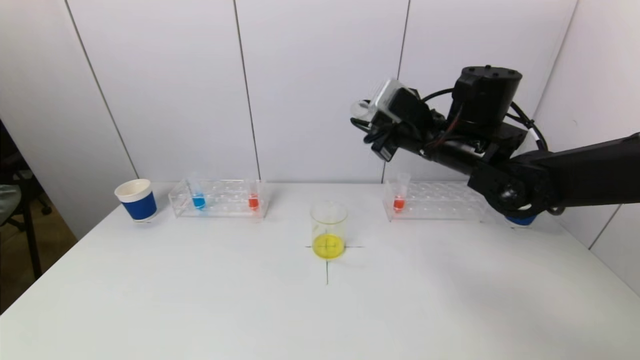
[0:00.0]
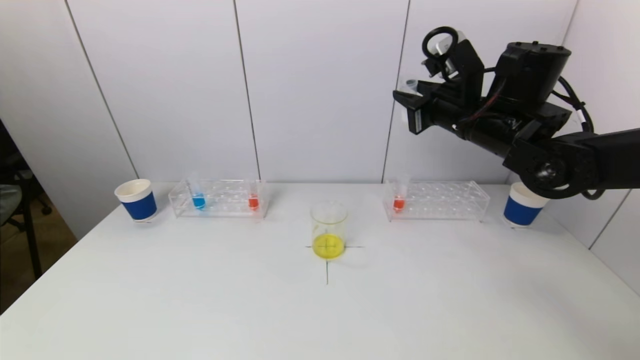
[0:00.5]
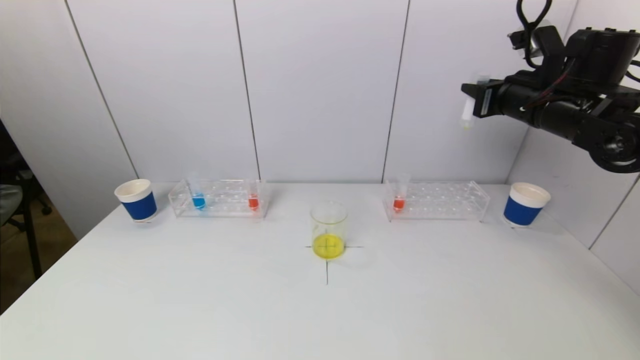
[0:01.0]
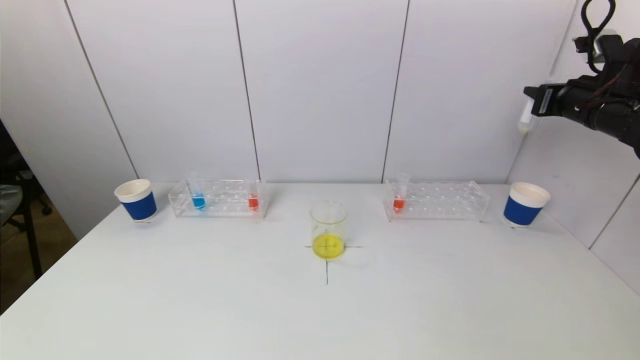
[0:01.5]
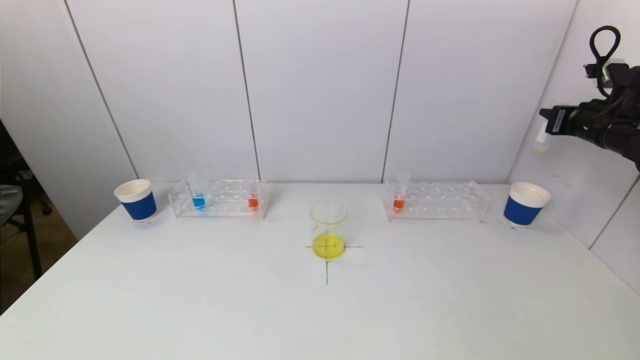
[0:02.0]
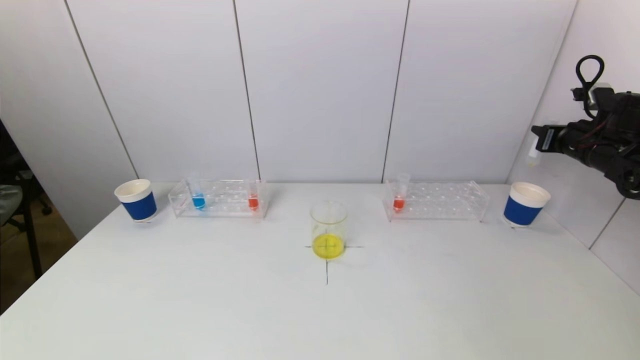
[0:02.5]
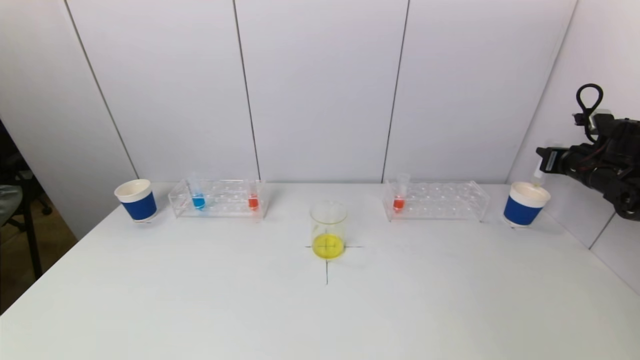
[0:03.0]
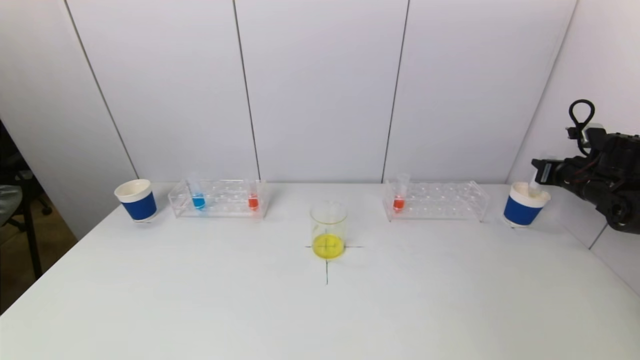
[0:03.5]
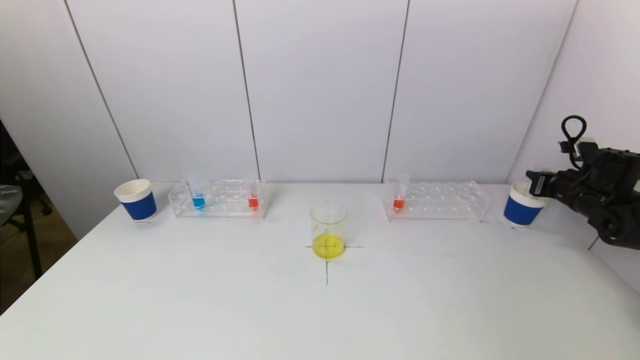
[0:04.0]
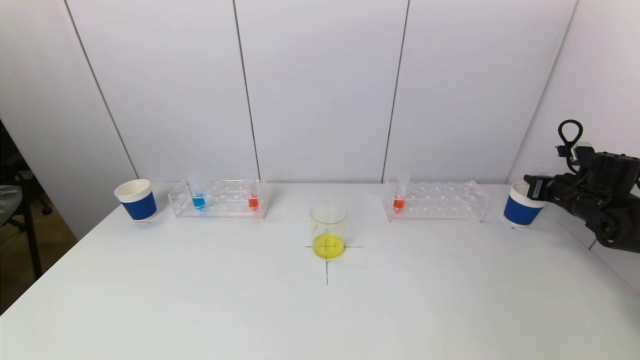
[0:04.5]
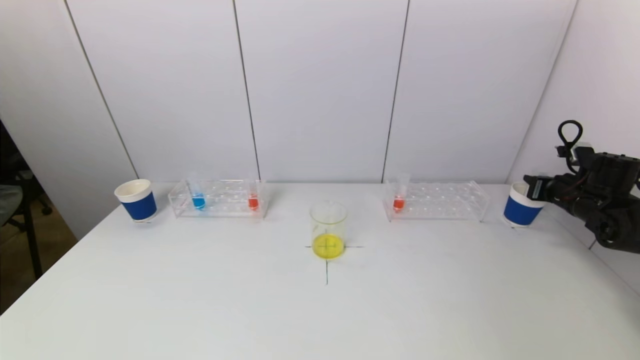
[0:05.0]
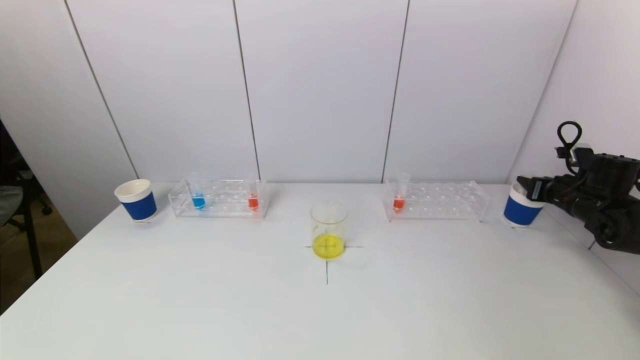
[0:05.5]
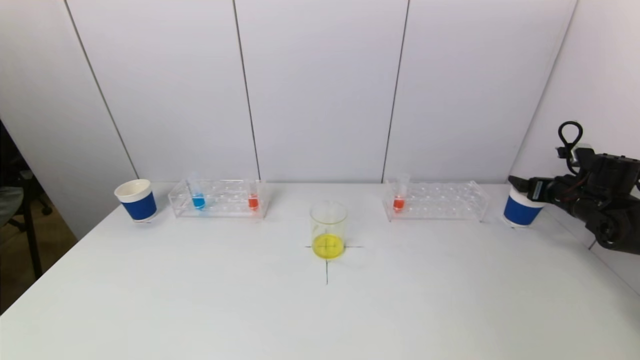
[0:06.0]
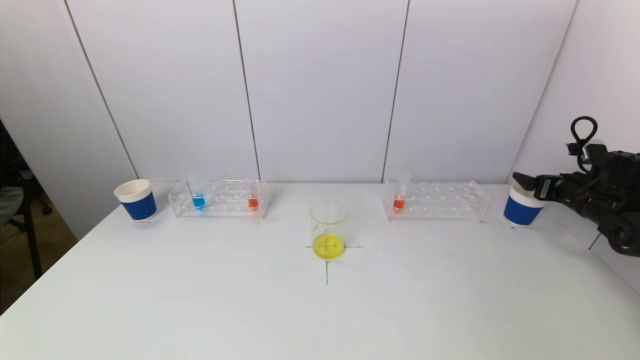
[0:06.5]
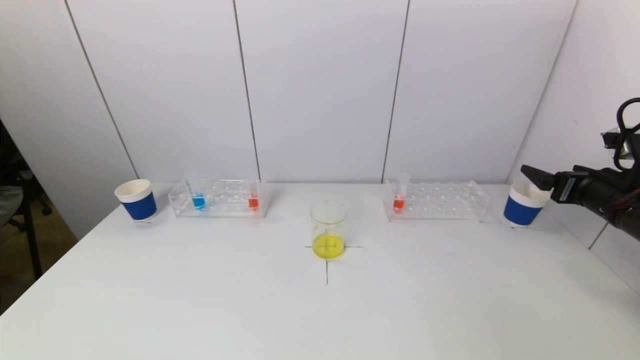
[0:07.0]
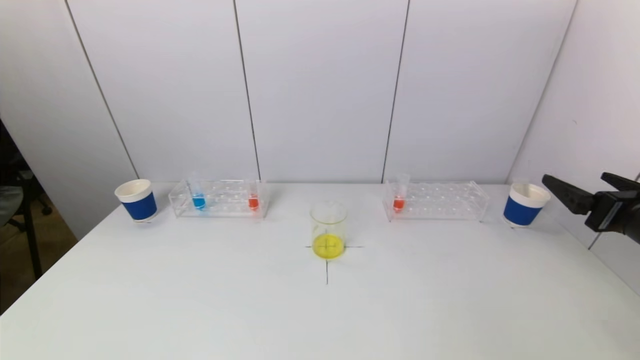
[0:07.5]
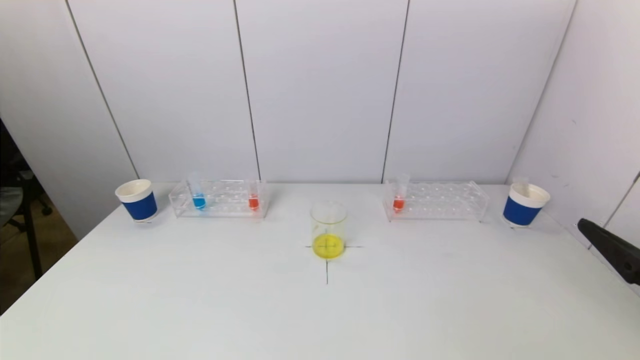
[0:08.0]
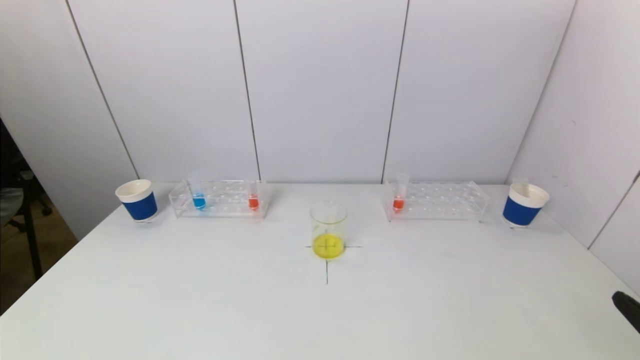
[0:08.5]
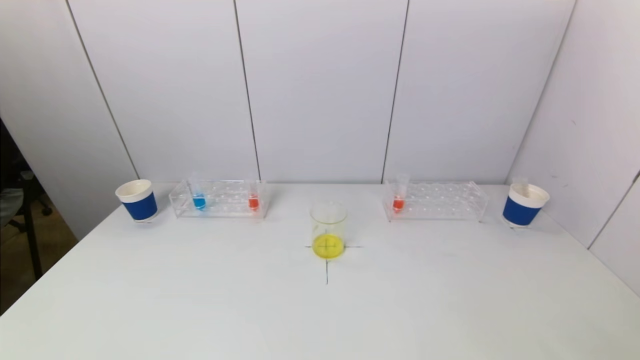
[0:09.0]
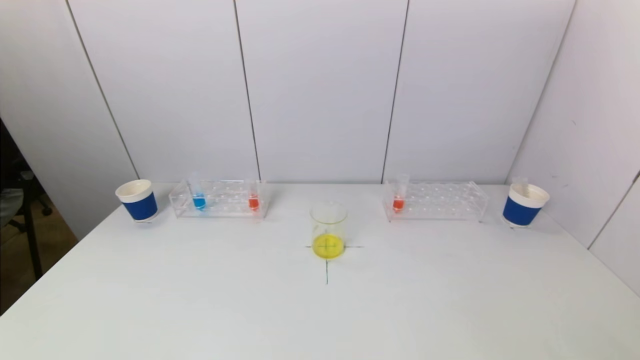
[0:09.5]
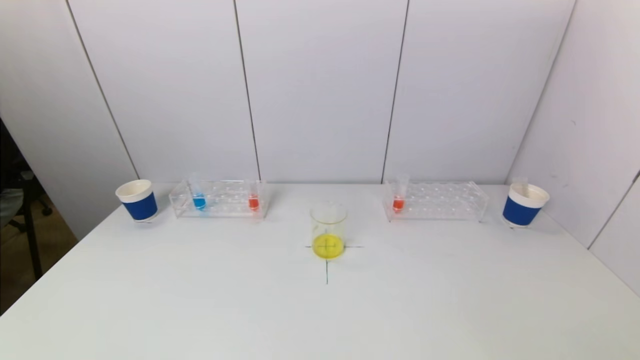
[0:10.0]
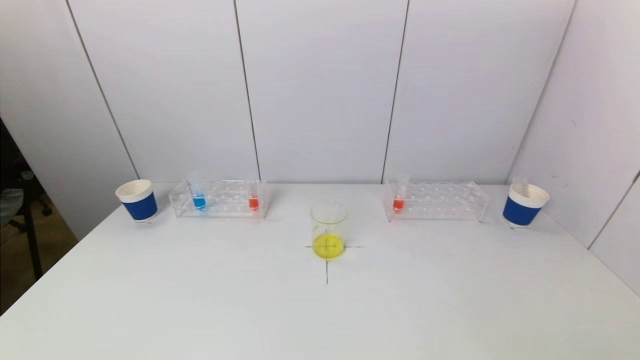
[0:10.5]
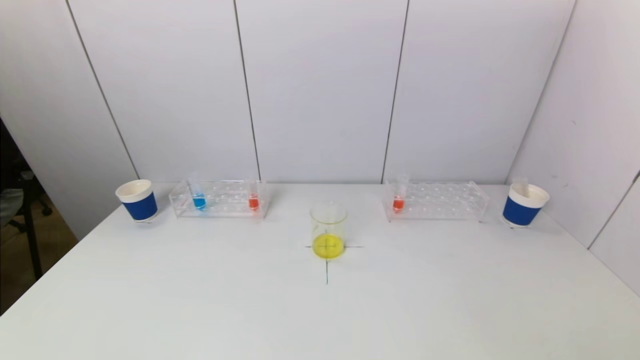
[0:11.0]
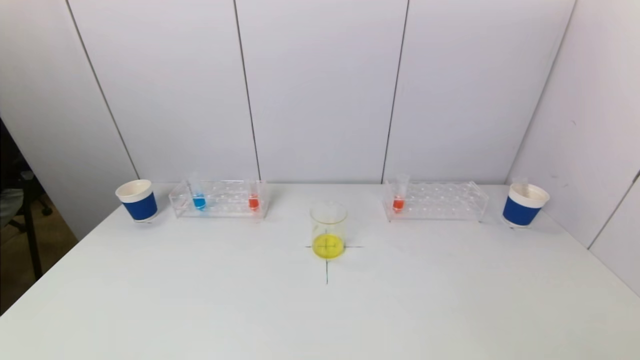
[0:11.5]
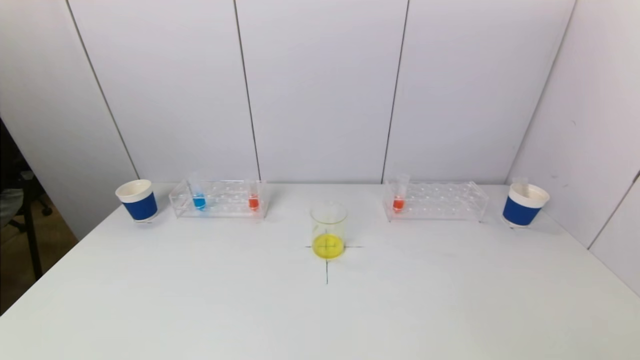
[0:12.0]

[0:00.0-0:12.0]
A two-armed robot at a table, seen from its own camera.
Task of the whole recording: pick up a test tube with pigment on left test tube rack and a test tube with pigment on right test tube rack by grippers and pour them into the beaker.
Step, 0:00.0 to 0:05.5: Place the test tube into the paper cup with the right gripper.
0:00.0 to 0:02.0: The right gripper shifts about 30 cm to the right.
0:02.0 to 0:04.0: The right gripper shifts about 15 cm downward.
0:04.0 to 0:06.0: The right gripper opens up.
0:06.0 to 0:08.0: The right gripper heads backward and to the left, covering some 30 cm.
0:08.0 to 0:10.0: The right gripper is displaced backward and downward by some 15 cm.

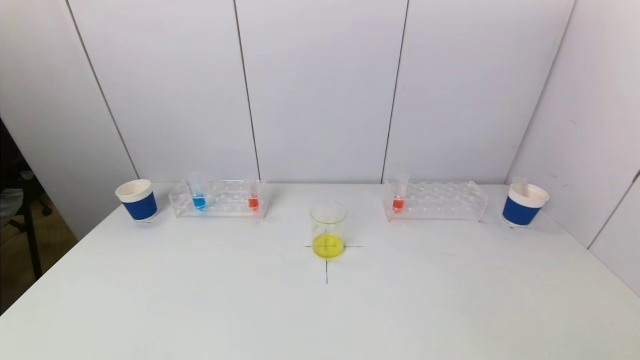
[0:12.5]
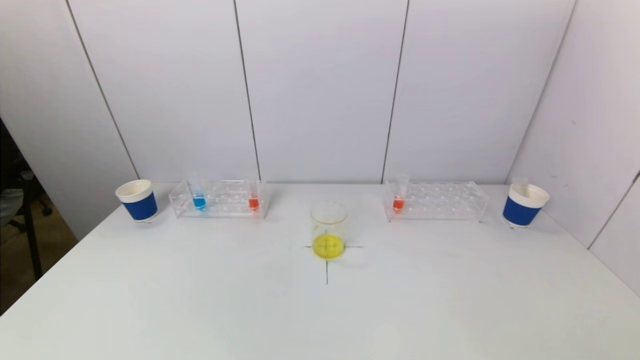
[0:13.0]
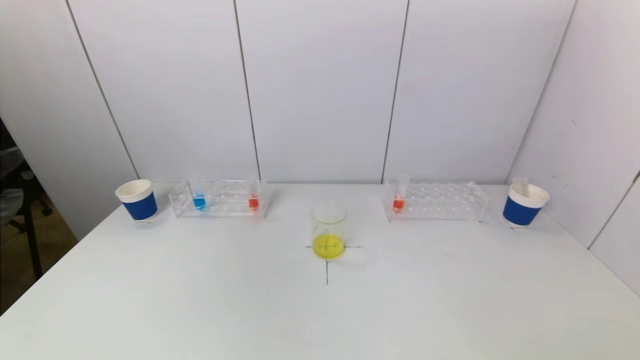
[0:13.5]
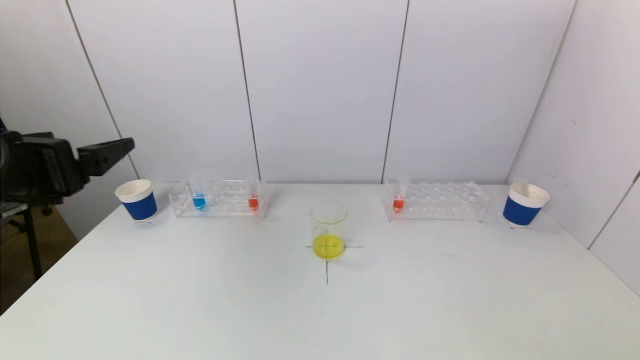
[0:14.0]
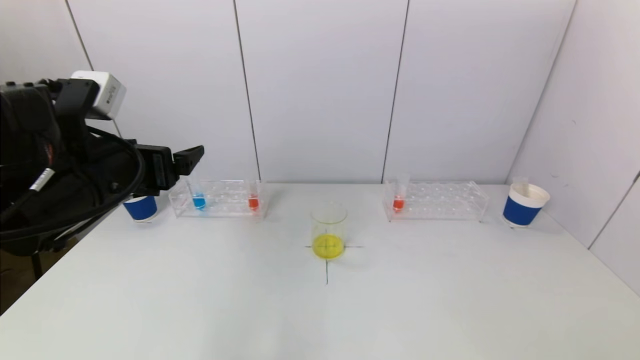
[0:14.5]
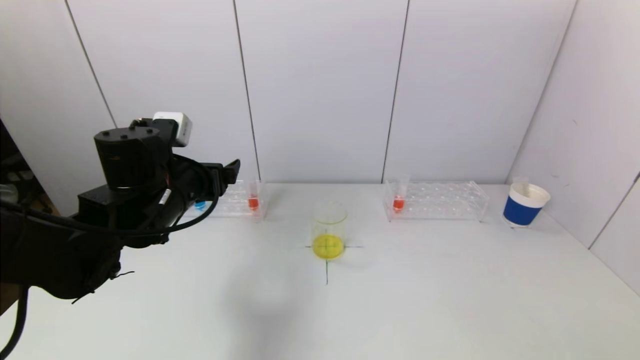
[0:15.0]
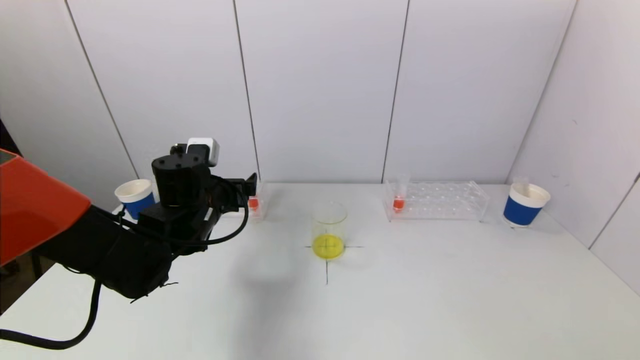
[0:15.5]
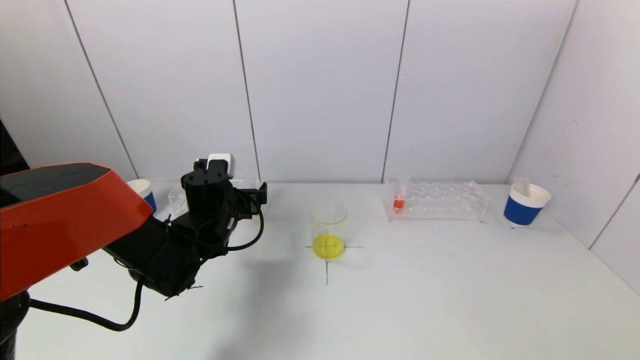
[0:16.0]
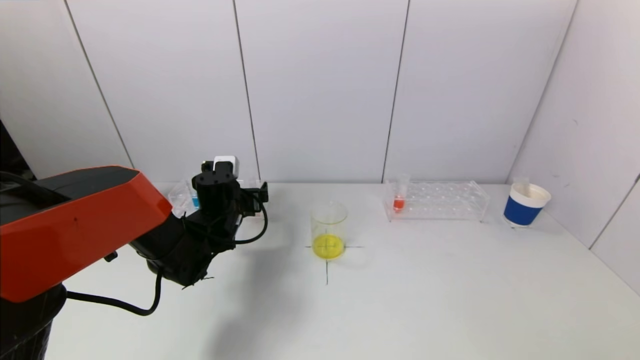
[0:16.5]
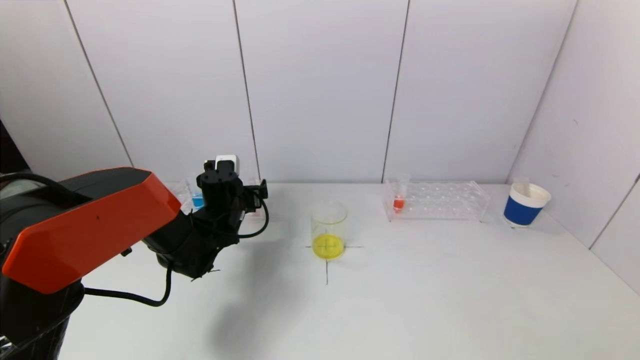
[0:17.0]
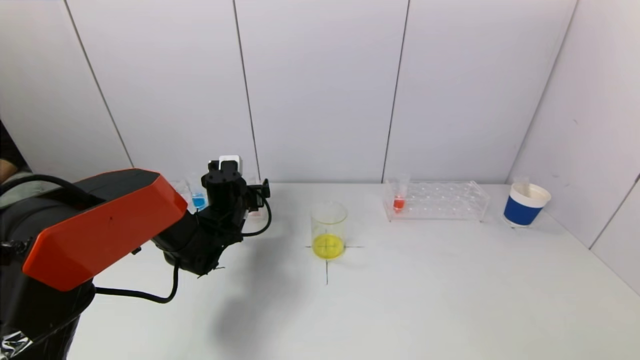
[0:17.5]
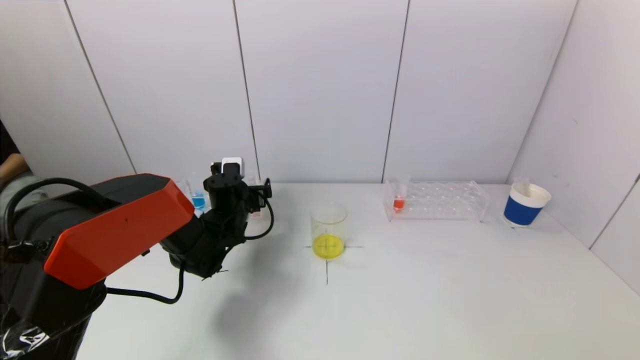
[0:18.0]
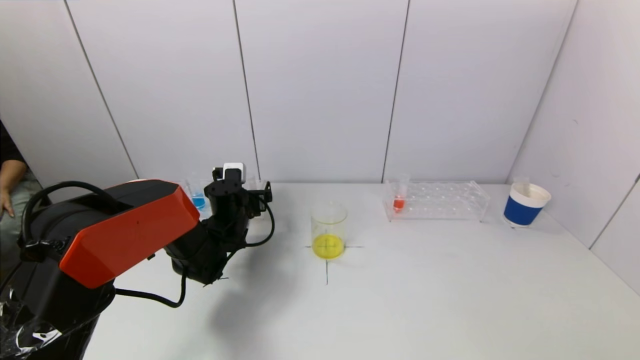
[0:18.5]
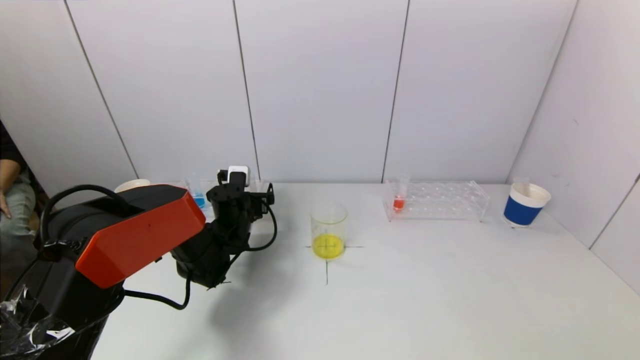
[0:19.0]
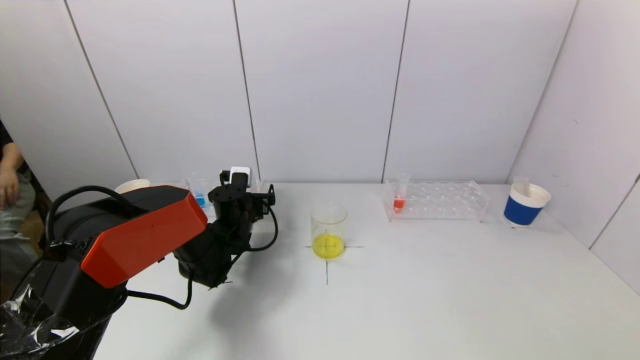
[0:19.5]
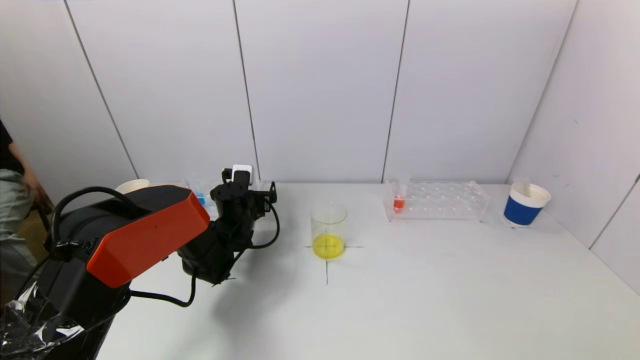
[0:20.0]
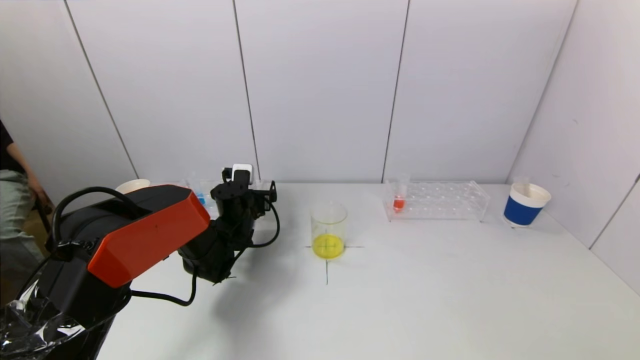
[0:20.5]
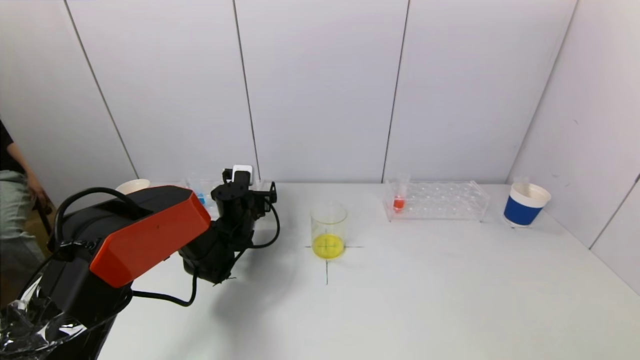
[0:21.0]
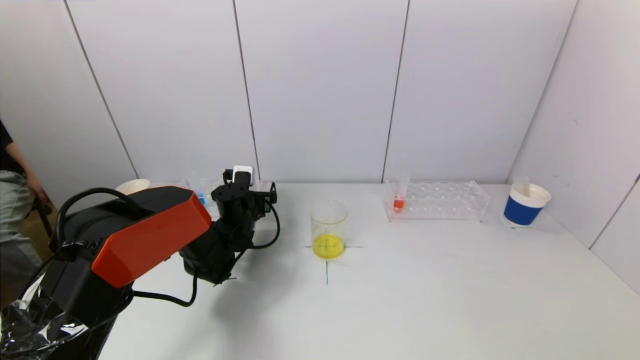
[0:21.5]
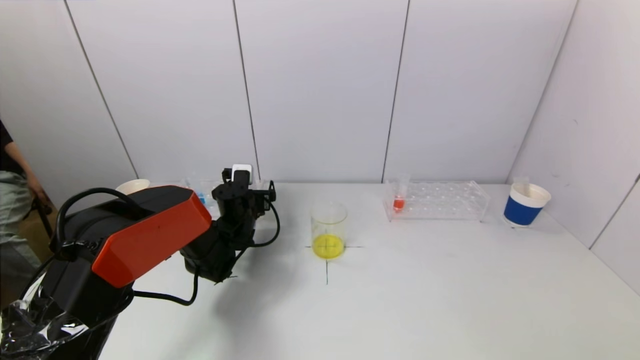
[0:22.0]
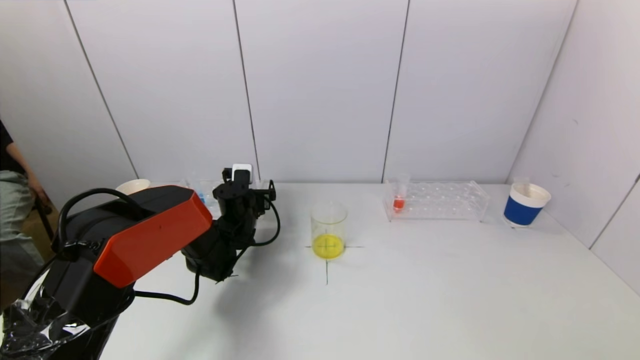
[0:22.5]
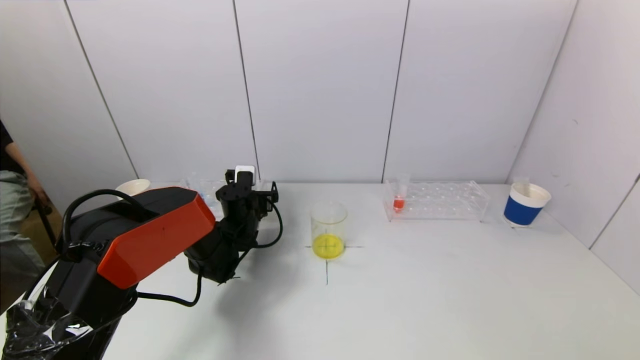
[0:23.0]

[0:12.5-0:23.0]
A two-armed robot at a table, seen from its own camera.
Task of the whole recording: pick up a test tube with pigment on left test tube rack and a test tube with pigment on right test tube rack by grippers and pour them into the beaker.
0:12.5 to 0:14.5: The left gripper is displaced forward by some 25 cm.
0:14.5 to 0:16.5: The left gripper heads downward and forward, covering roughly 25 cm.
0:16.5 to 0:19.0: The left gripper changes place by roughly 5 cm.
0:19.0 to 0:21.0: The two grippers keep their place.
0:21.0 to 0:23.0: Neither gripper changes place.
